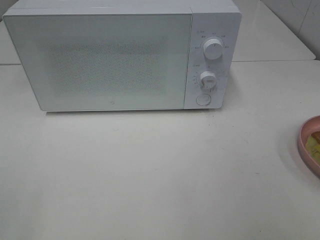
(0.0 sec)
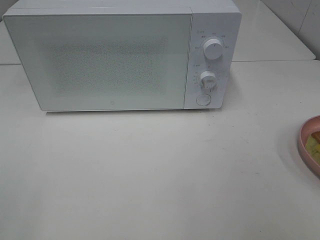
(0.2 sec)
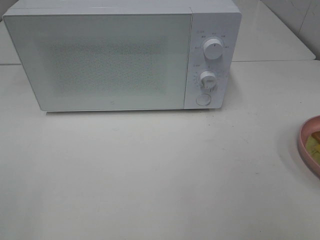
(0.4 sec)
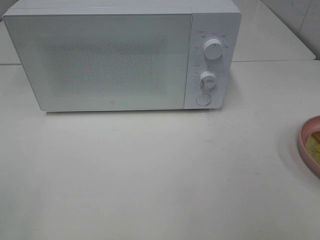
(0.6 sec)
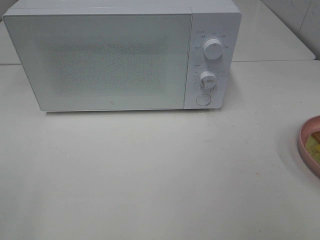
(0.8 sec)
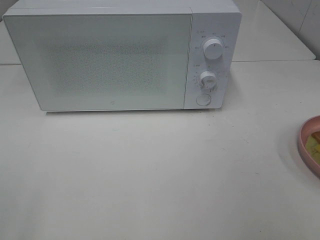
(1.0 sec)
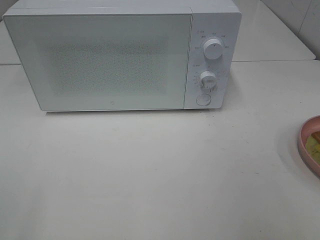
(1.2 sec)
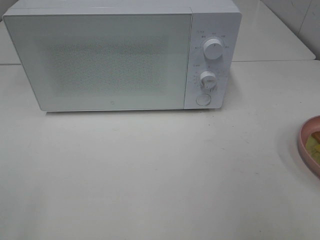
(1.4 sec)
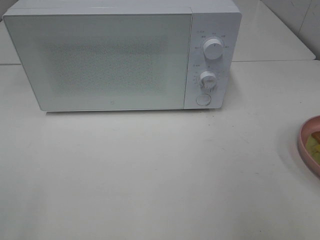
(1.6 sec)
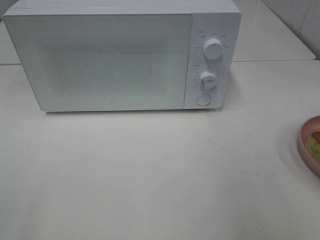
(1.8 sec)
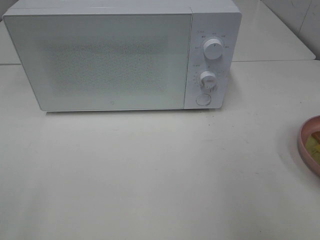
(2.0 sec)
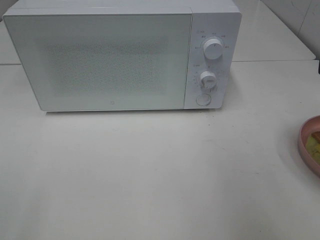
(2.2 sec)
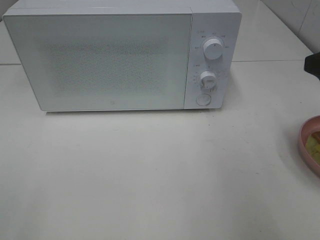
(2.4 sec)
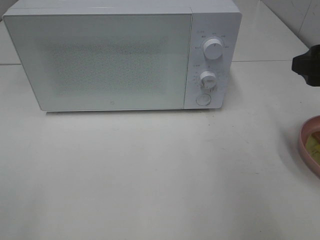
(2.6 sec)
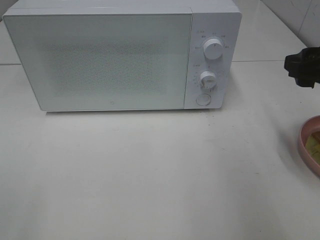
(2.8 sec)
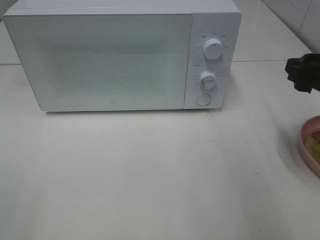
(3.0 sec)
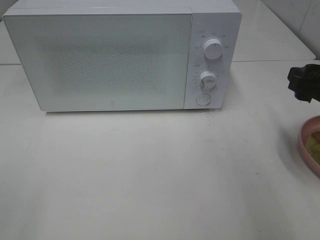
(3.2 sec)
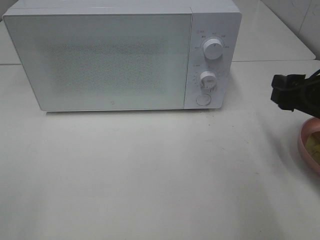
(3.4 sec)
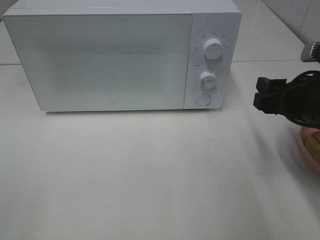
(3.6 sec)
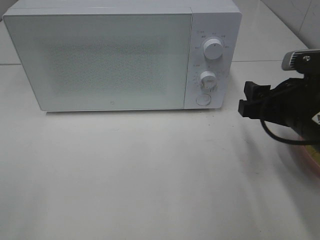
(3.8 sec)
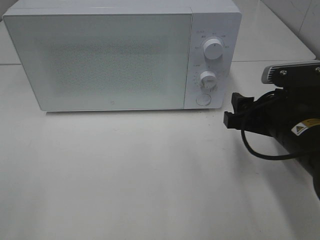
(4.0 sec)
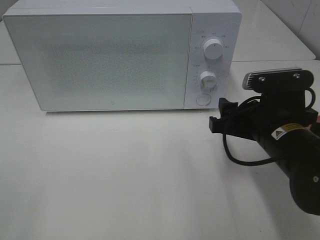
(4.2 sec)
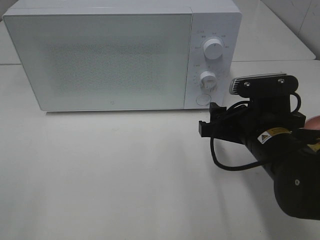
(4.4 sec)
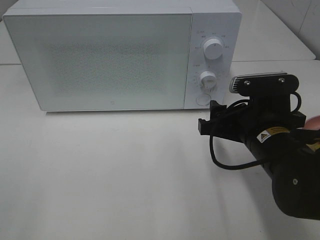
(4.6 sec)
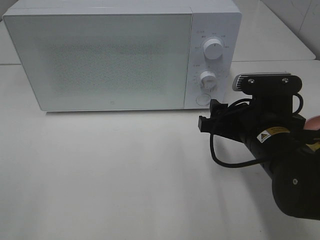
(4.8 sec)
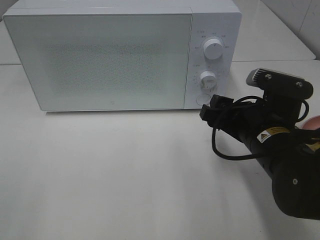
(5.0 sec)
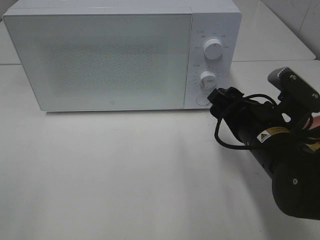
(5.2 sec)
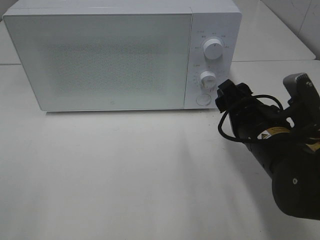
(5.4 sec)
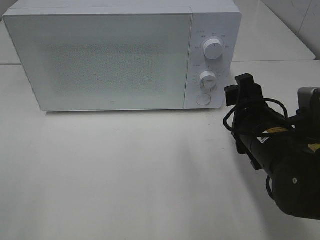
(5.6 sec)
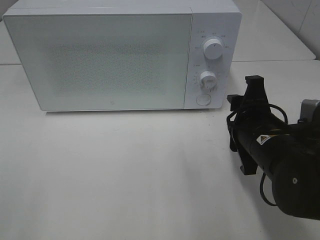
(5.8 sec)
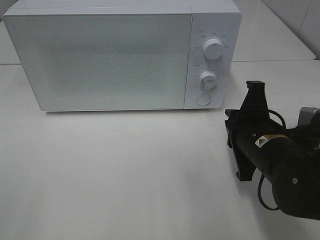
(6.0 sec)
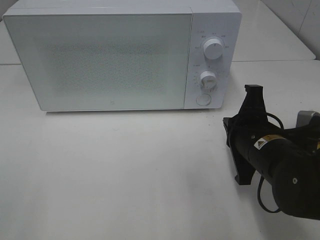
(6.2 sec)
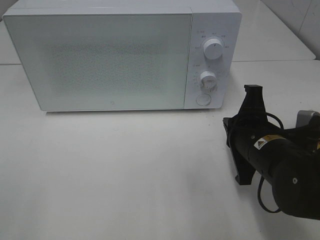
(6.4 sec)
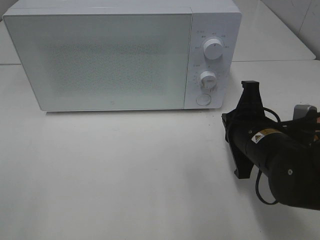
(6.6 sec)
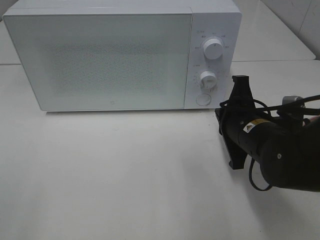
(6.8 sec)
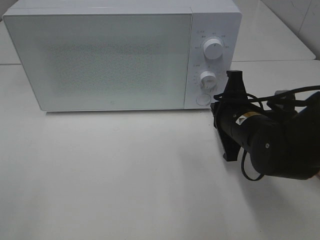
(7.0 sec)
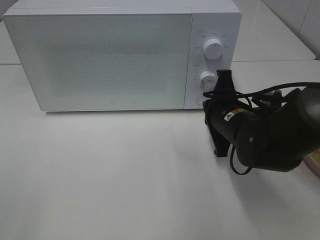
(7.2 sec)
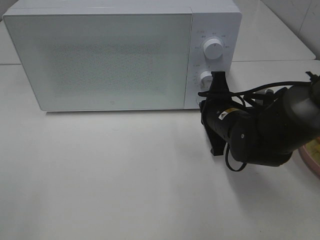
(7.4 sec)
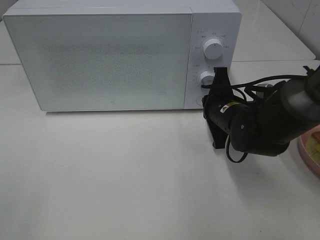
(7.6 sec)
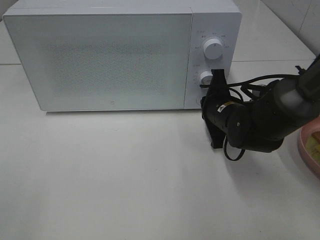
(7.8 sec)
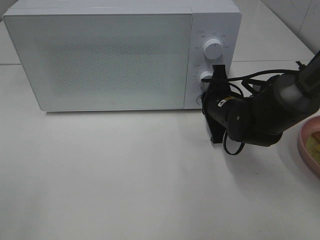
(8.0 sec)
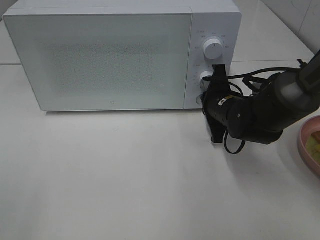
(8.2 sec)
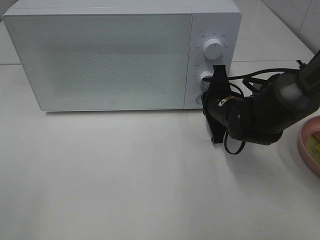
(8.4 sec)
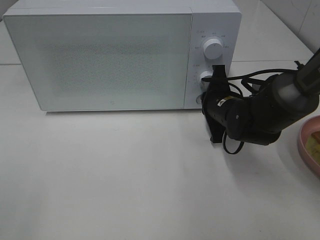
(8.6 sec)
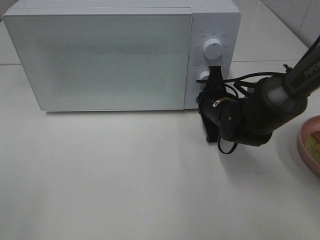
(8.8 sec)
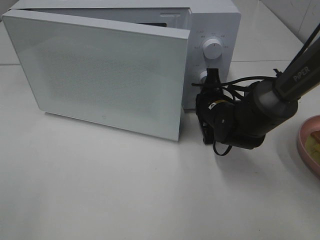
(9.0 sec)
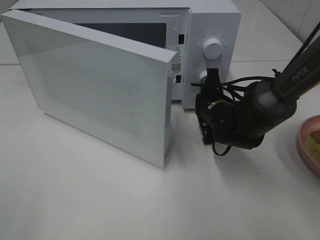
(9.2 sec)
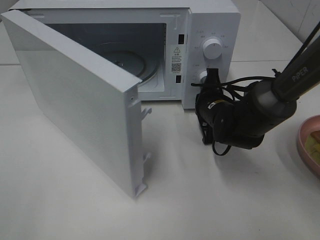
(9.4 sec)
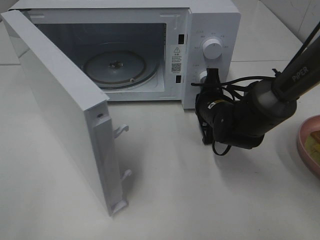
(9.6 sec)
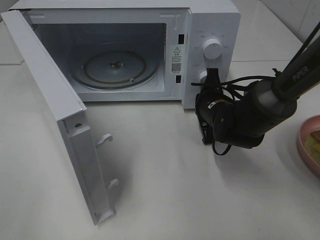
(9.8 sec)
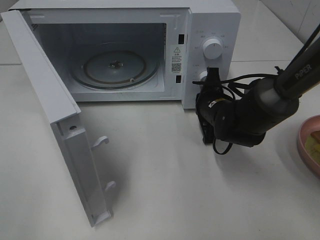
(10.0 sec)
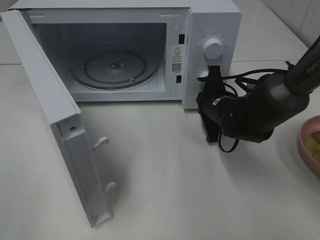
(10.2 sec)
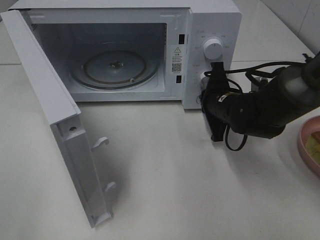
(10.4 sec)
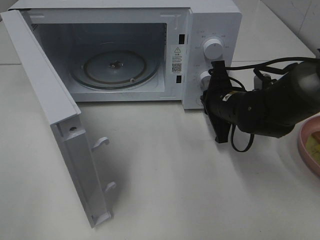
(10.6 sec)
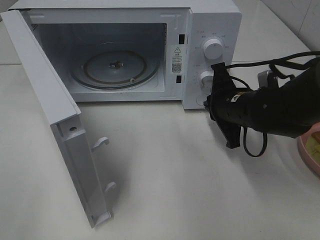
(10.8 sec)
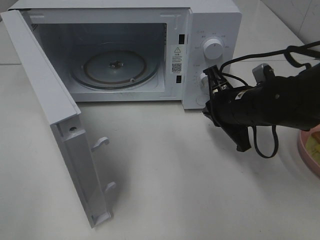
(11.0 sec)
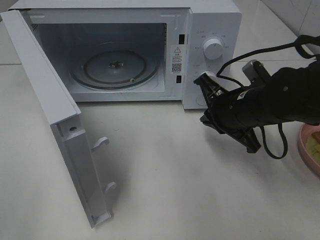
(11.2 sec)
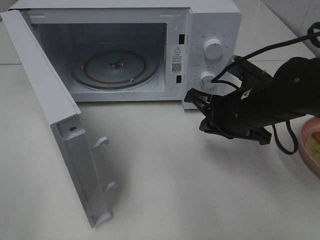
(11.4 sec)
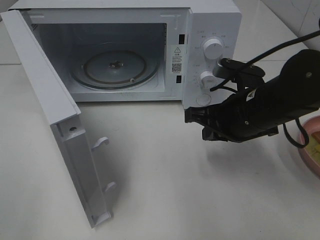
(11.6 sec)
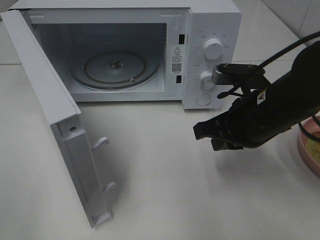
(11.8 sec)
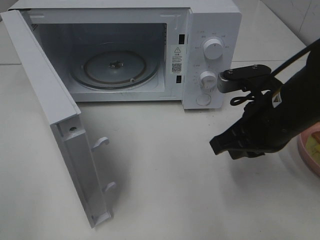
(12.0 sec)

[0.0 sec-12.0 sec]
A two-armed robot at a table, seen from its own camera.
Task of the whole recording: Heat Sandwich.
Step, 0.0 sec to 10.8 sec: Right hand: press the switch.
1.6 sec to 3.0 sec: The right gripper heads forward and downward, covering about 15 cm.
3.0 sec to 4.4 sec: The right gripper moves to the left and downward, approximately 15 cm.
4.4 sec to 6.0 sec: The right gripper closes its fingers.
6.0 sec to 7.6 sec: The right gripper is displaced forward by about 10 cm.
7.6 sec to 9.0 sec: The grippers make only small movements.
10.4 sec to 12.0 sec: The right gripper heads backward and upward, covering roughly 15 cm.

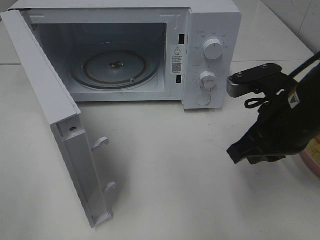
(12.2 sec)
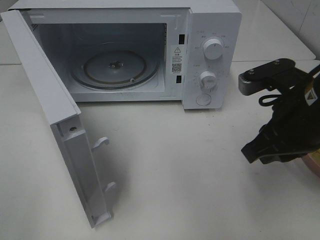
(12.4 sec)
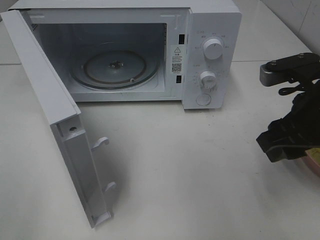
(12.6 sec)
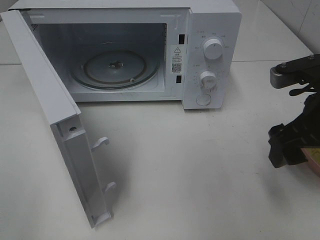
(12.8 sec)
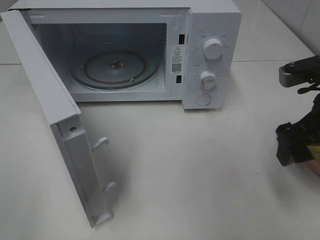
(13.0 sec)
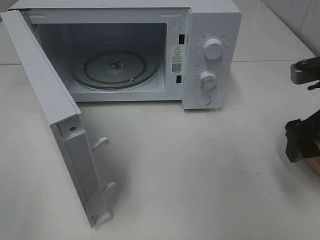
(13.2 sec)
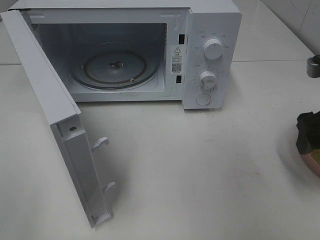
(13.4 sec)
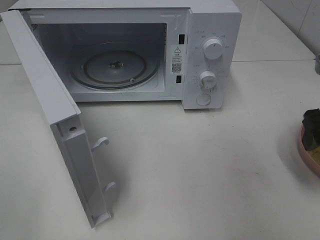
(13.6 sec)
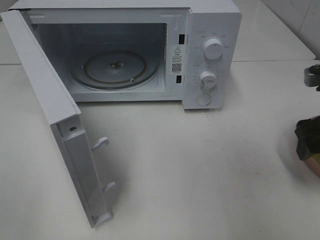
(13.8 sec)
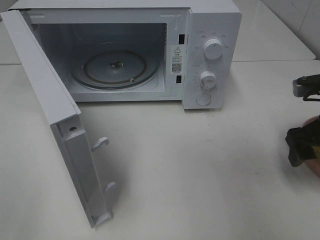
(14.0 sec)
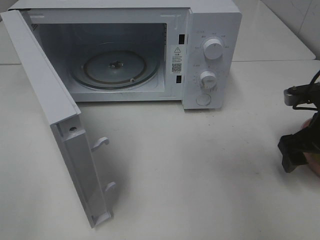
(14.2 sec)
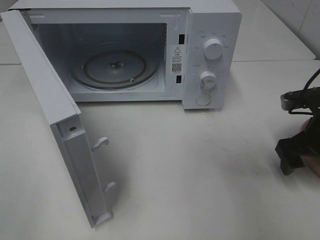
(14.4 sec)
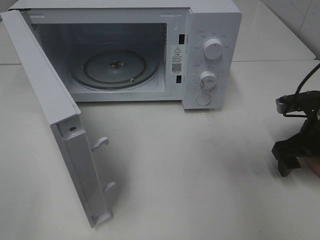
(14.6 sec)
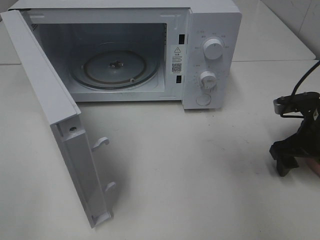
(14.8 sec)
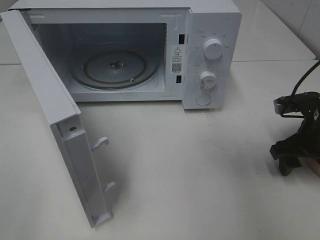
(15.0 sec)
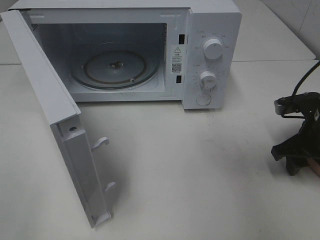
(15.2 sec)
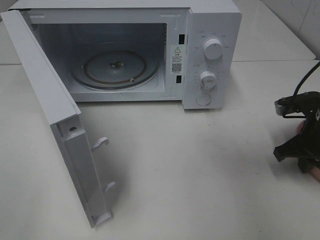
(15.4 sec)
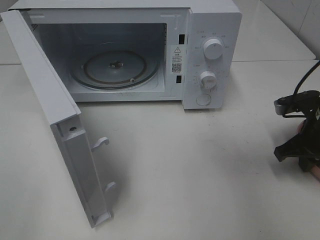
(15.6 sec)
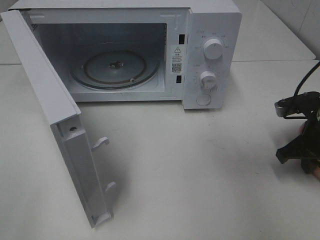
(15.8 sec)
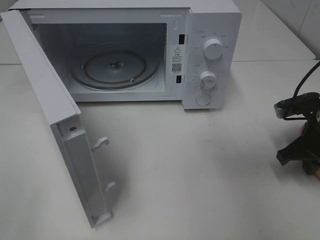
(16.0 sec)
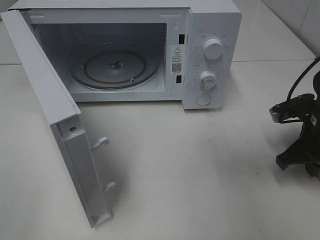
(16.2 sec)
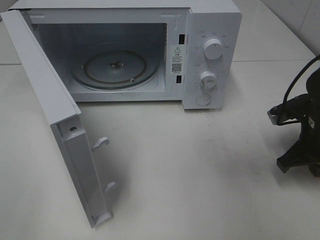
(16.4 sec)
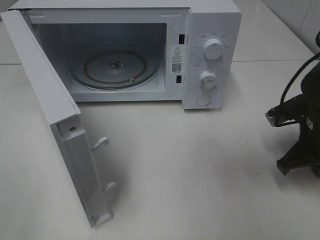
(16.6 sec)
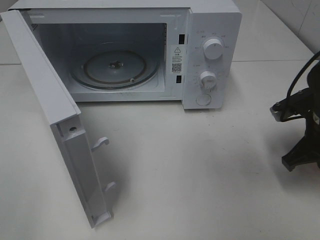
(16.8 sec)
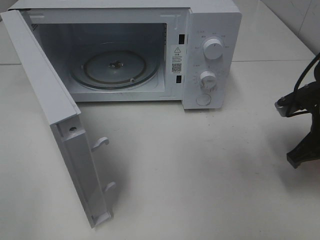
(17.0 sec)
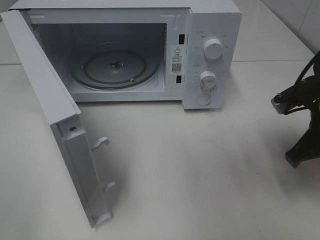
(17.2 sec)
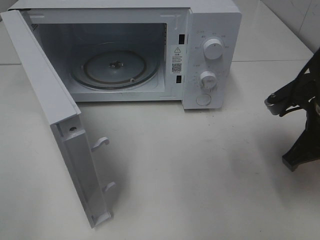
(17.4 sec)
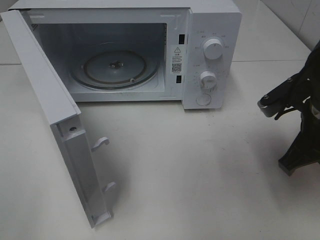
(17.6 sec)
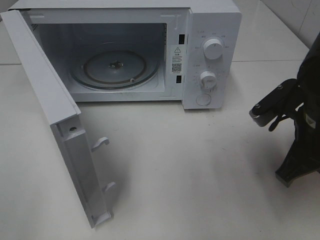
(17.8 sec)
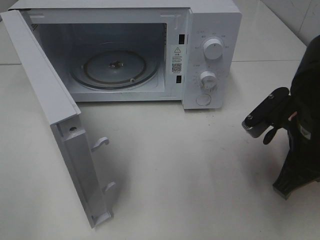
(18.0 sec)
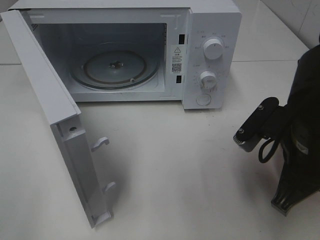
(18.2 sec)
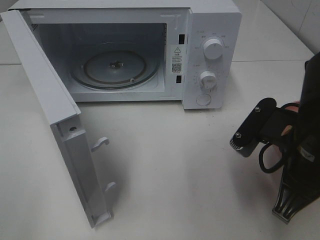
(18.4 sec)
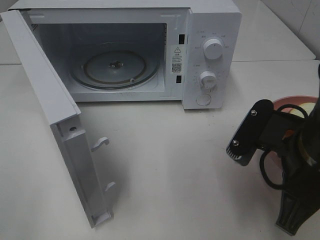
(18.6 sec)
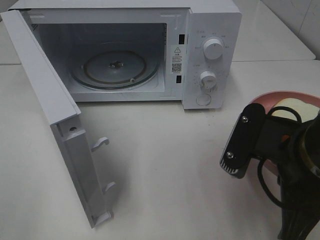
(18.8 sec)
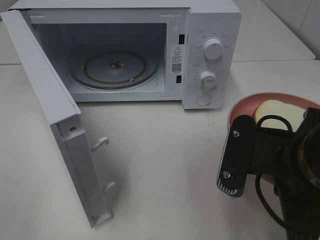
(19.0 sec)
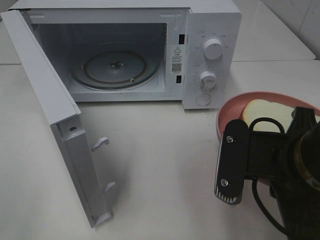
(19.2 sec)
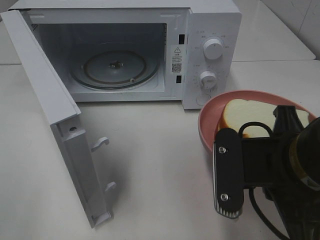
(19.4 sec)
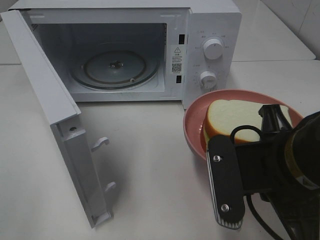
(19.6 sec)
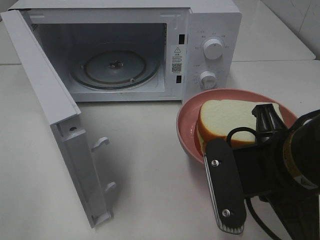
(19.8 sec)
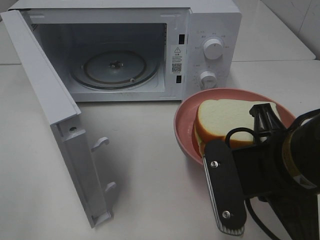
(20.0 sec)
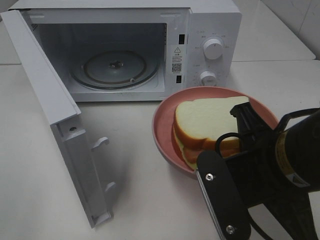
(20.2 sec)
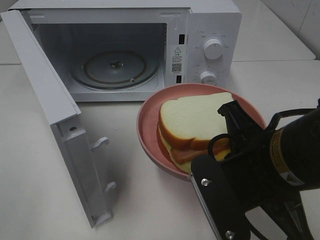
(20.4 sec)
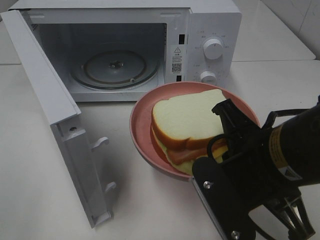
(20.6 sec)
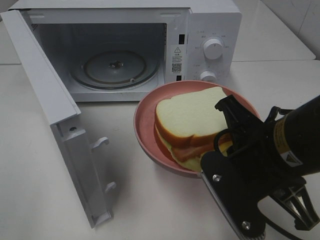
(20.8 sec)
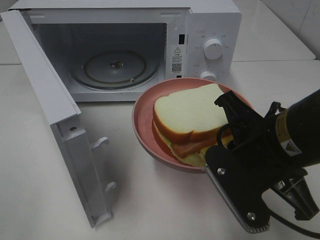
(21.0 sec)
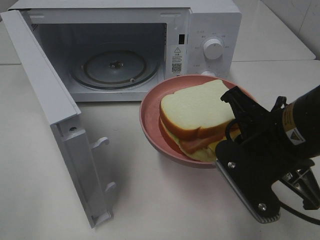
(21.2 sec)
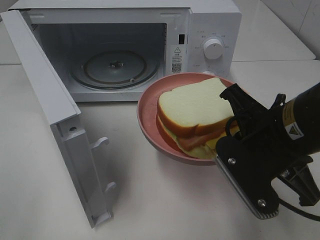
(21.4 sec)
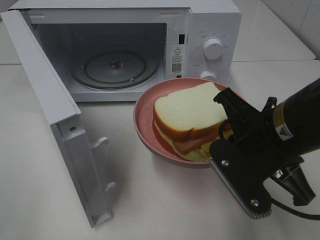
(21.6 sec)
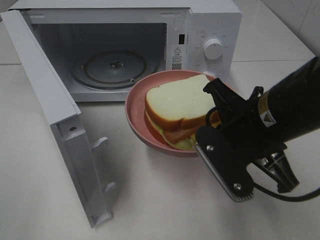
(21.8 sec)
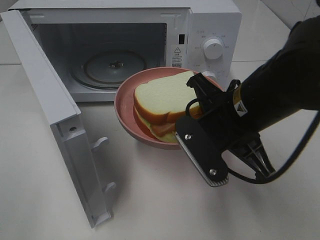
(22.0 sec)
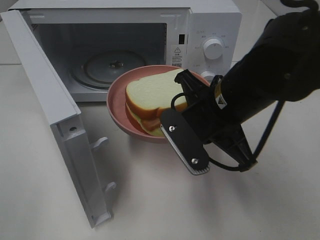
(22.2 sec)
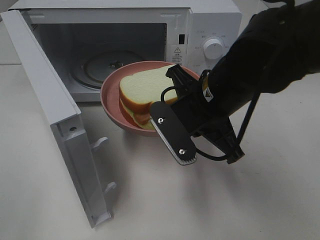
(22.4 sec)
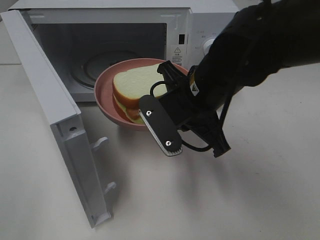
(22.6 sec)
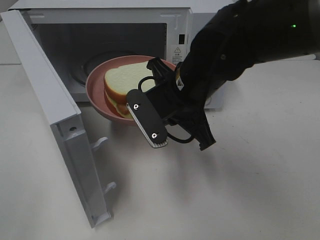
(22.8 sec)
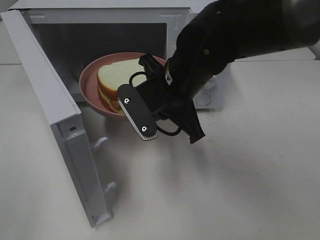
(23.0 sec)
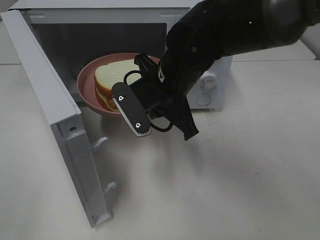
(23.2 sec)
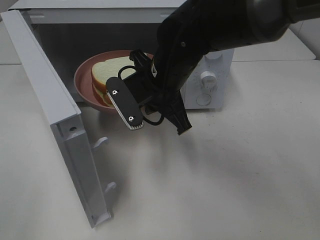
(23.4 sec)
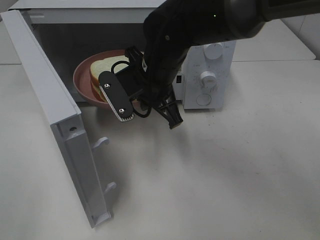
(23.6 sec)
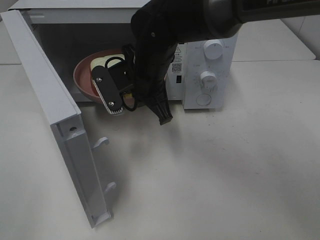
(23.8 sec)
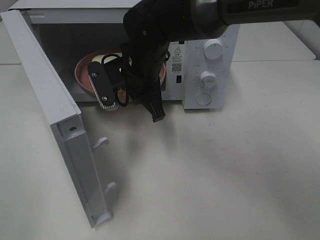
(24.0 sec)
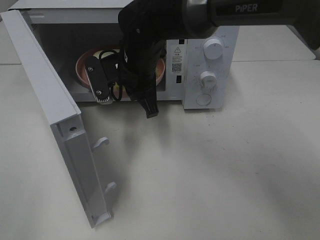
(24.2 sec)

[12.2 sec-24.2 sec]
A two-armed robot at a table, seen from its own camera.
Task of the whole recording: Heat Sandwich.
Step, 12.2 sec to 16.0 sec: Right hand: grab the plate with the sandwich.
12.2 sec to 13.8 sec: The right gripper travels to the right by roughly 10 cm, and opens.
13.8 sec to 15.2 sec: The right gripper moves downward, about 10 cm, and closes up.
15.2 sec to 16.6 sec: The right gripper closes.
16.6 sec to 18.2 sec: The right gripper goes some 15 cm to the left, backward and upward.
18.2 sec to 19.8 sec: The right gripper moves backward, roughly 5 cm.
21.2 sec to 22.6 sec: The right gripper travels forward and to the left by some 10 cm.
22.6 sec to 24.2 sec: The right gripper moves forward and to the left, about 15 cm.
